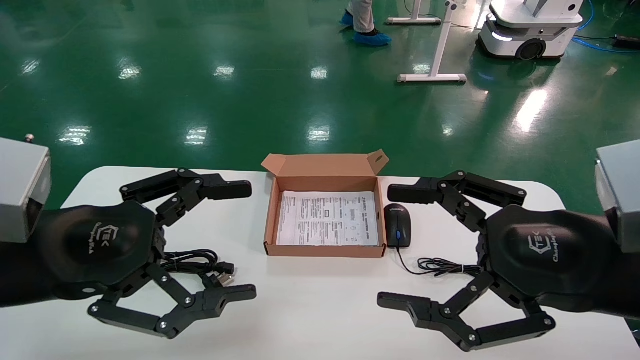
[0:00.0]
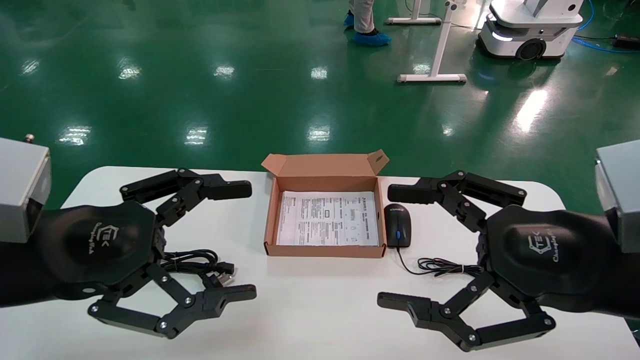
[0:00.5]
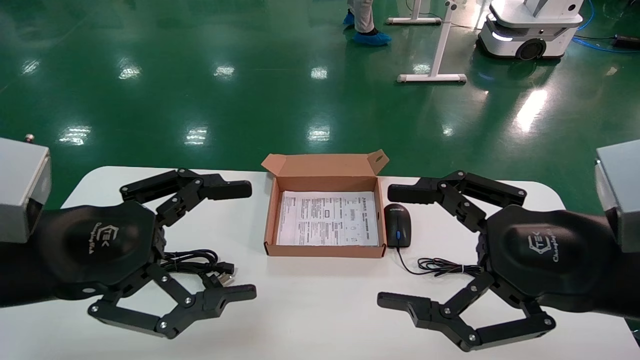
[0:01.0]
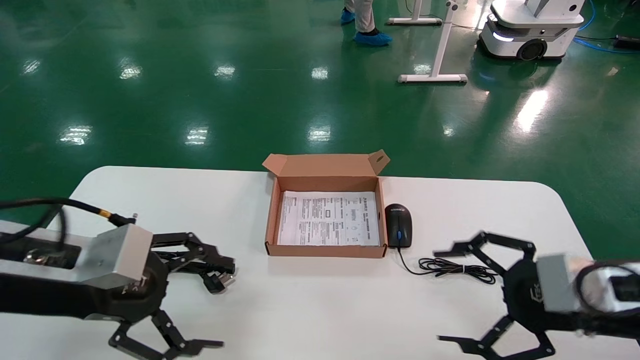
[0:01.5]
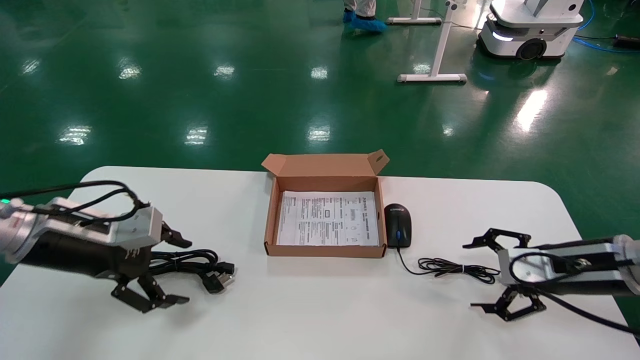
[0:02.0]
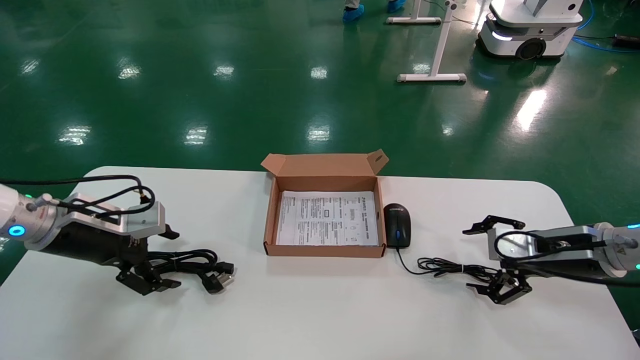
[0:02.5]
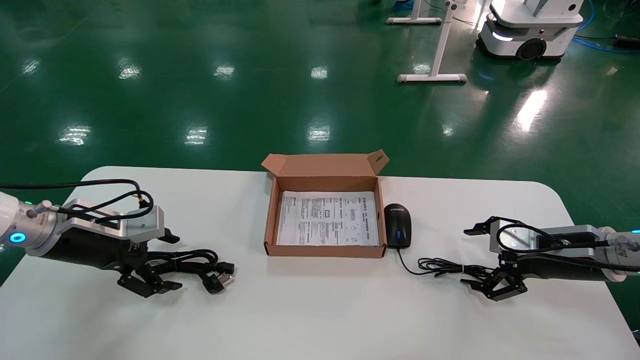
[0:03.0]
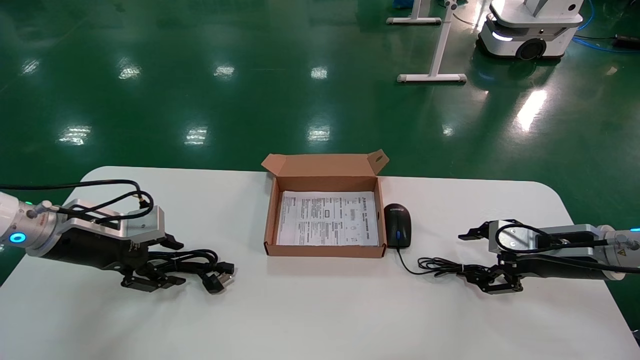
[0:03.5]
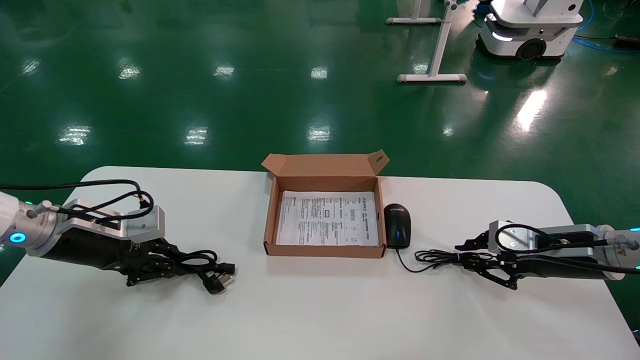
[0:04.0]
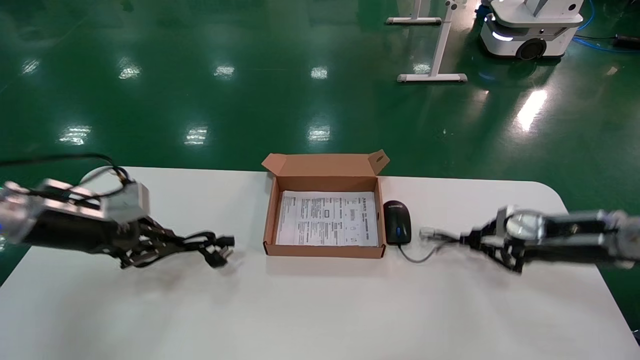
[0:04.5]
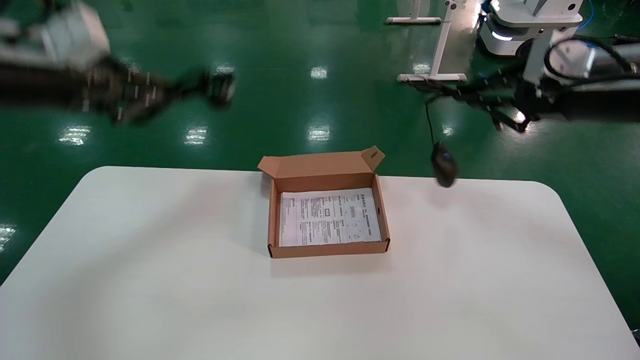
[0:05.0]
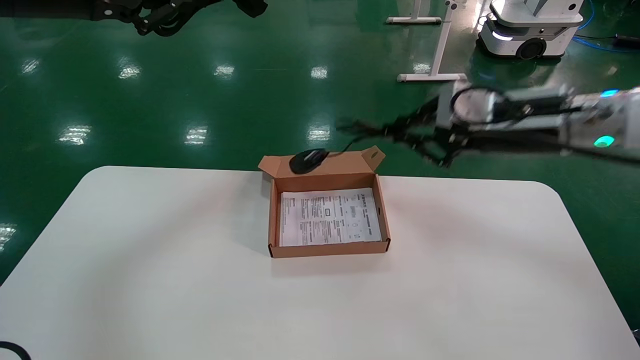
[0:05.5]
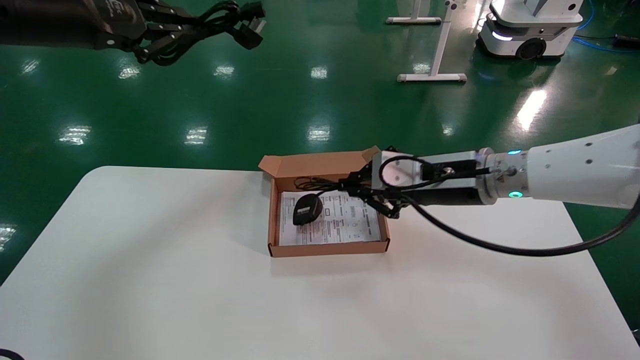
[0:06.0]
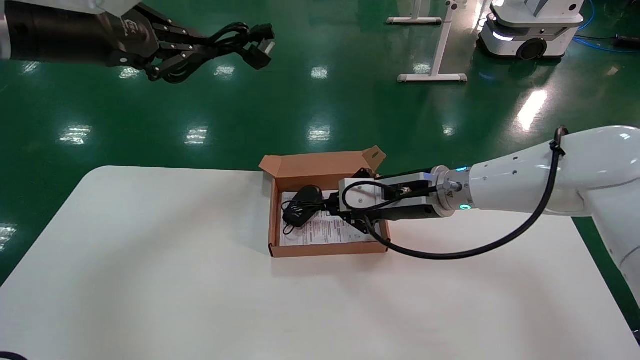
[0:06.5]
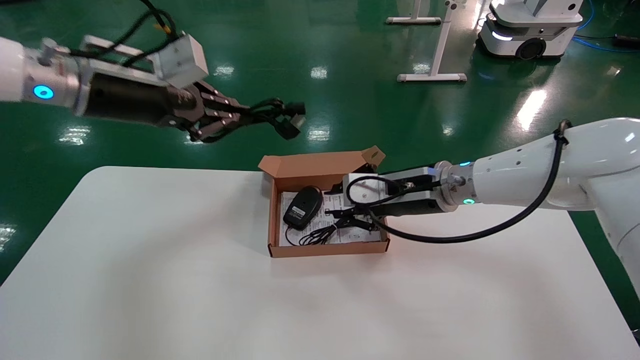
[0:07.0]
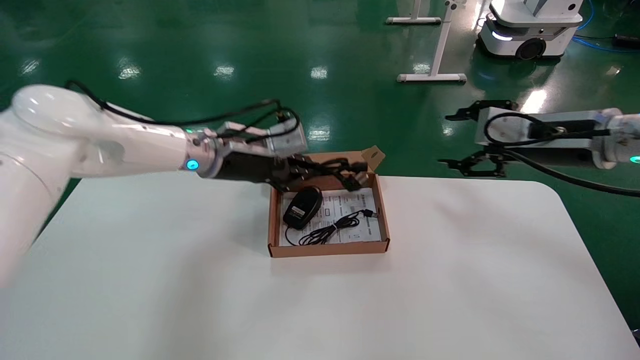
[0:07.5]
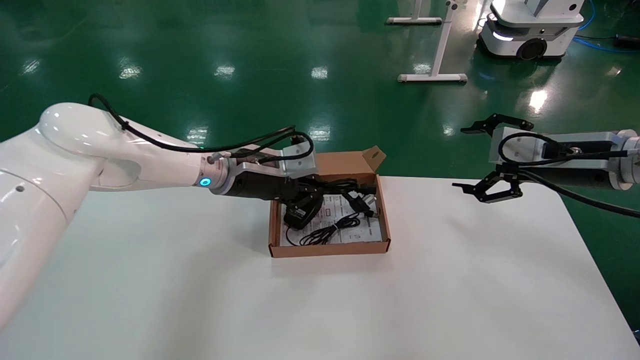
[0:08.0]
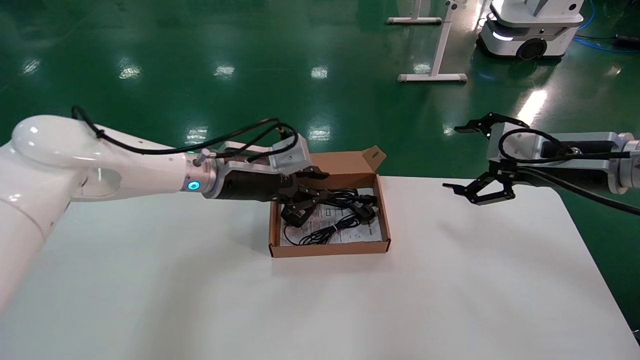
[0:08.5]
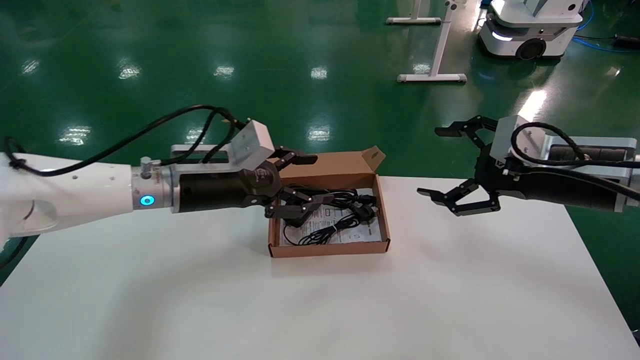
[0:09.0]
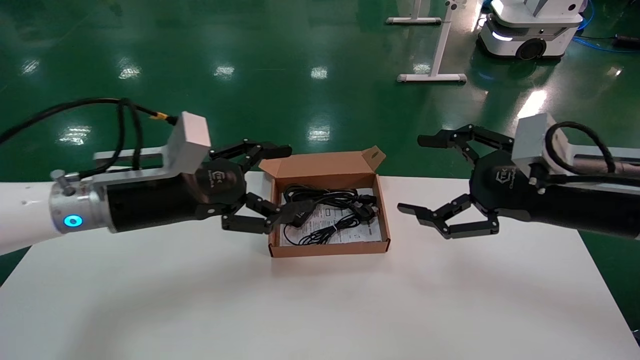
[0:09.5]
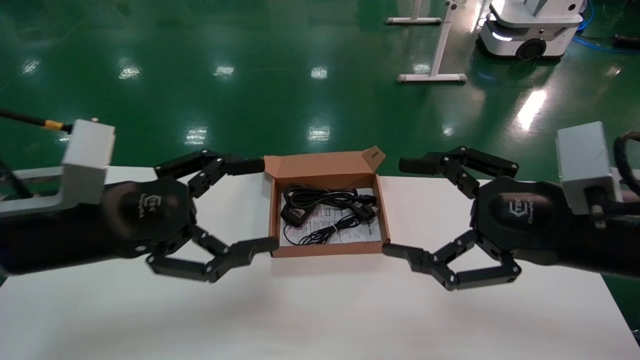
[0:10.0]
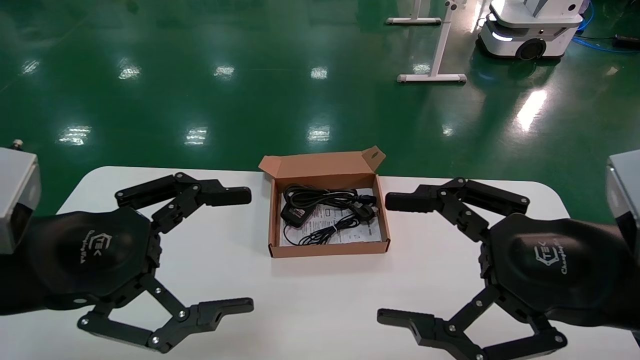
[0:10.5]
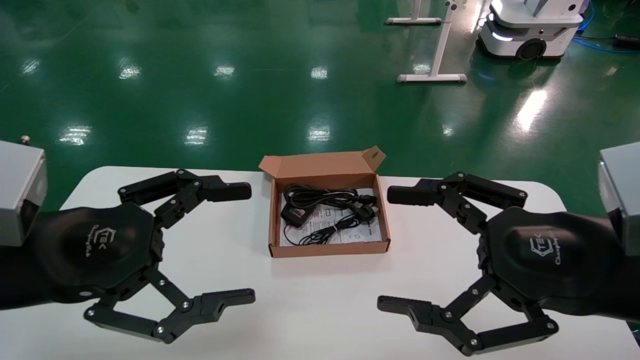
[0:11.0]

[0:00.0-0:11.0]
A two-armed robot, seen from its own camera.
Step, 0:01.5 to 0:04.5: Grab and lift both the mouse and power cord from the accessory packaging area at the same time.
Step, 0:05.0 to 0:09.0: Place the mouse and power cord into the box.
0:00.0 to 0:02.0: The left gripper goes some 15 cm forward and to the left, while the right gripper shifts approximately 20 cm forward, downward and to the right.
0:02.0 to 0:03.5: The left gripper ends up approximately 5 cm from where it was.
0:03.5 to 0:05.5: The right gripper goes some 20 cm upward and to the left, and closes; the left gripper moves upward, some 30 cm, and closes.
0:05.5 to 0:07.5: The left gripper shifts about 25 cm downward, to the right and forward; the right gripper shifts about 5 cm to the right, and opens up.
0:07.5 to 0:09.0: Both grippers move backward, about 5 cm. The left gripper opens up; the right gripper opens its fingers.
0:09.0 to 0:11.0: The right gripper shifts roughly 15 cm backward, while the left gripper goes approximately 20 cm backward and to the left, and opens its fingers.

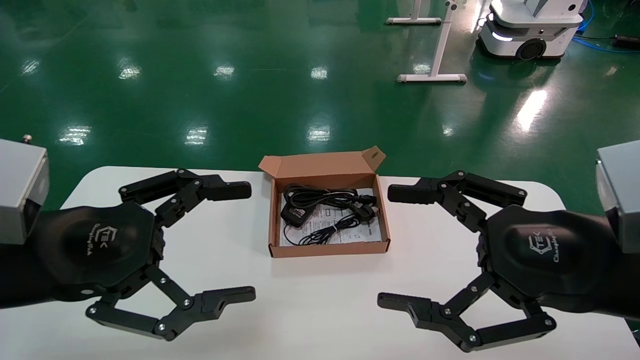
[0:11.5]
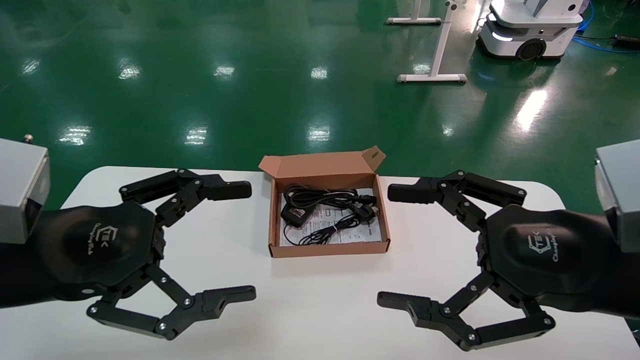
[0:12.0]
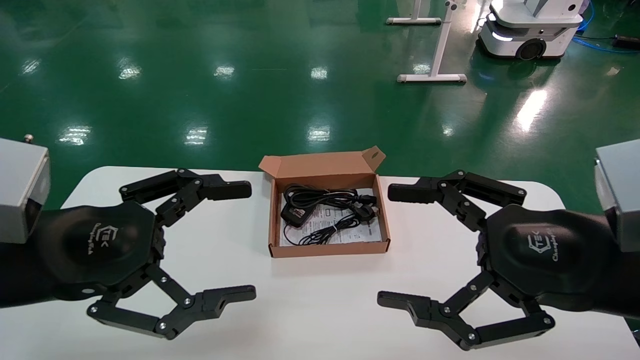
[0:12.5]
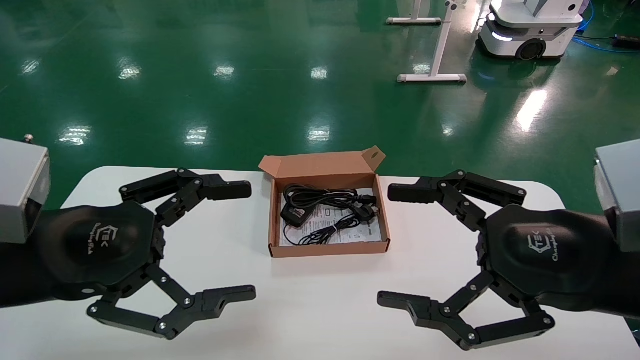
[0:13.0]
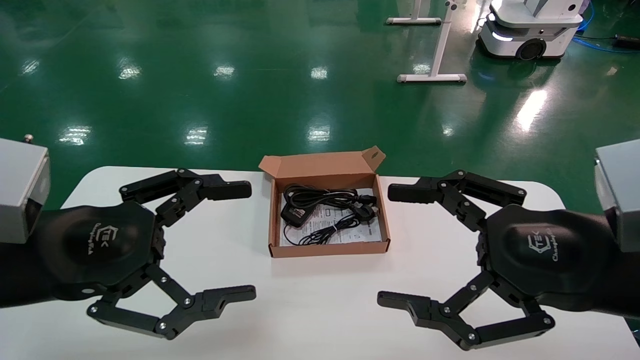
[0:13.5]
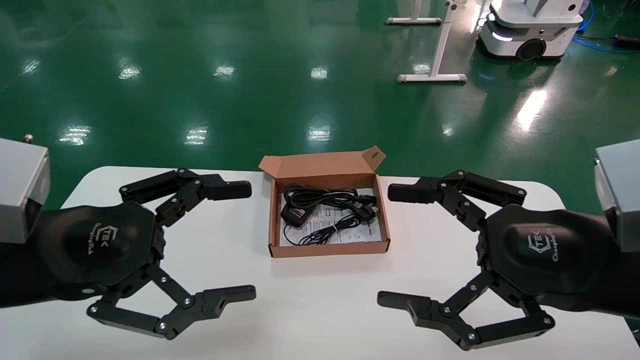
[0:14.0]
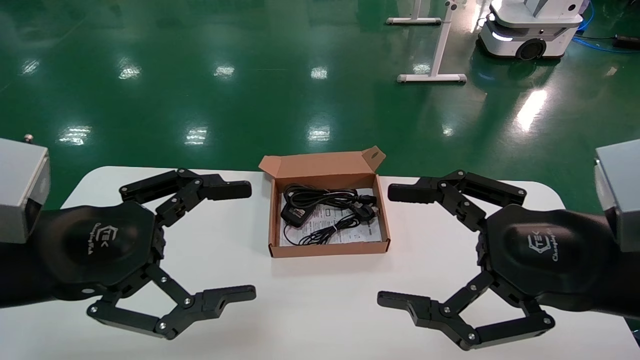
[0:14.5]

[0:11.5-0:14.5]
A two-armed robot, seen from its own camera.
0:11.5 to 0:14.5: Neither gripper changes place.
